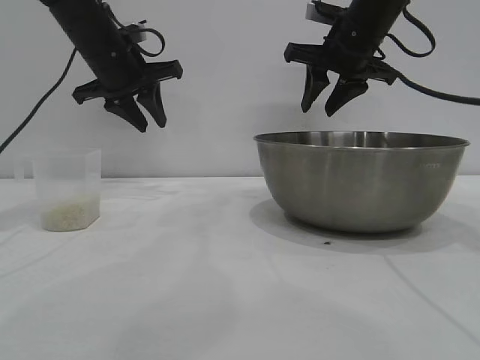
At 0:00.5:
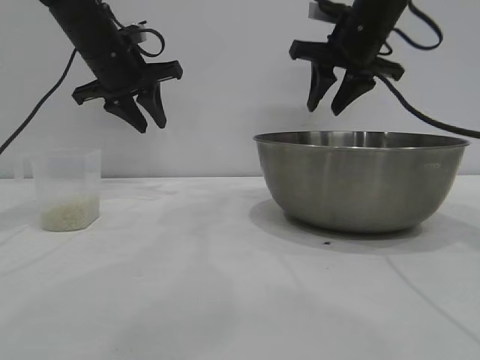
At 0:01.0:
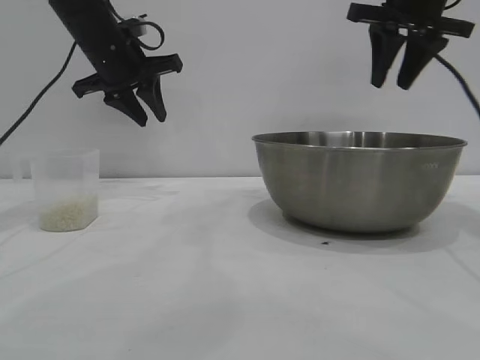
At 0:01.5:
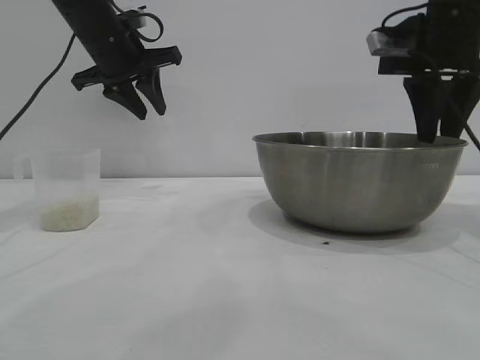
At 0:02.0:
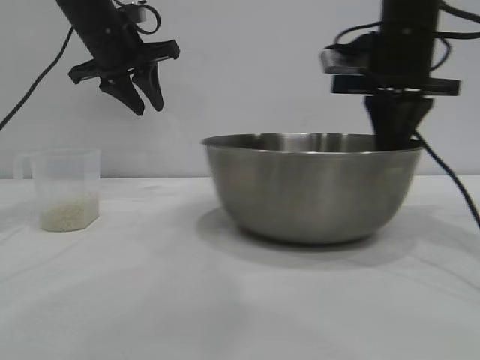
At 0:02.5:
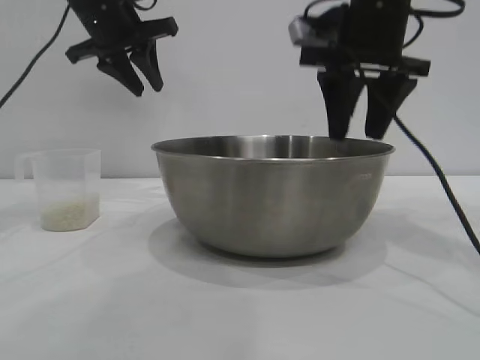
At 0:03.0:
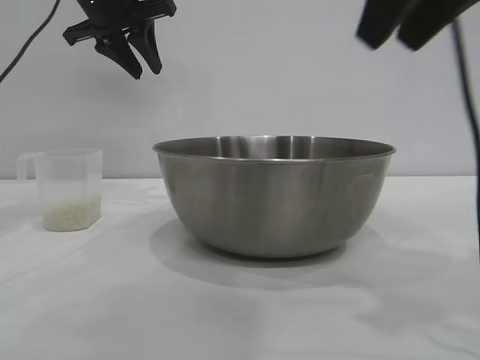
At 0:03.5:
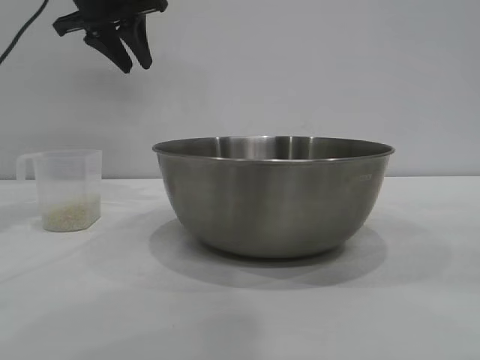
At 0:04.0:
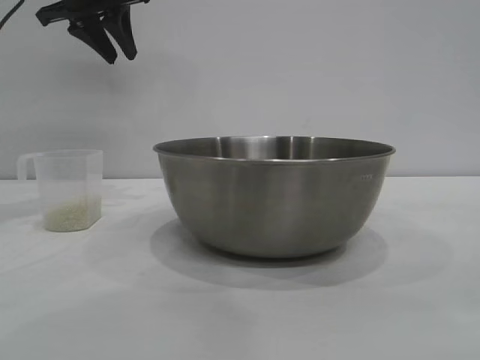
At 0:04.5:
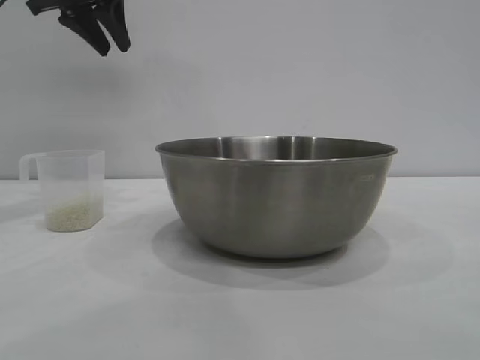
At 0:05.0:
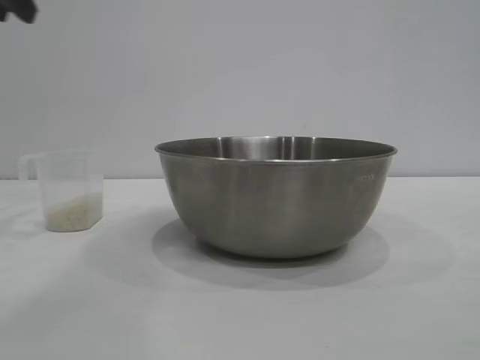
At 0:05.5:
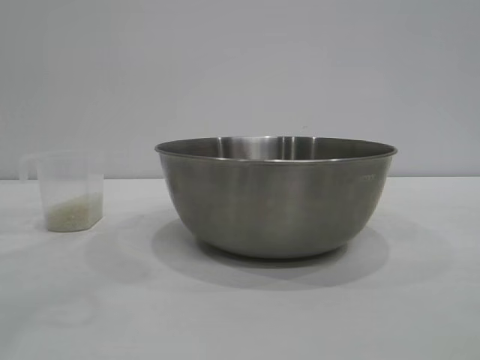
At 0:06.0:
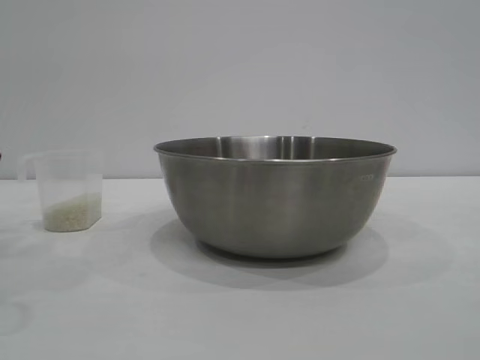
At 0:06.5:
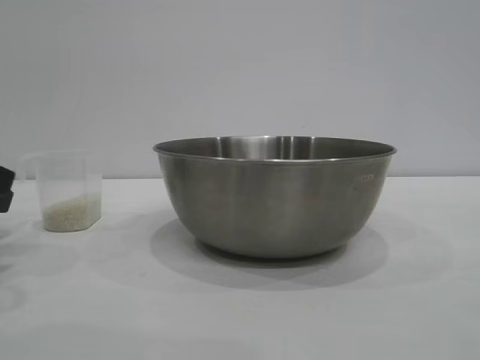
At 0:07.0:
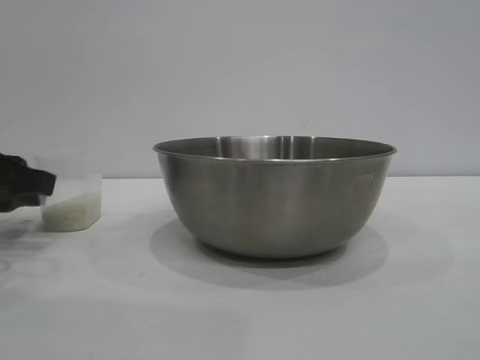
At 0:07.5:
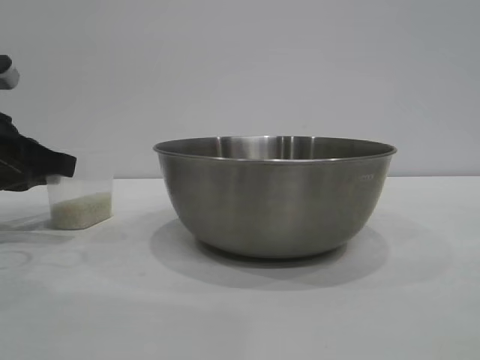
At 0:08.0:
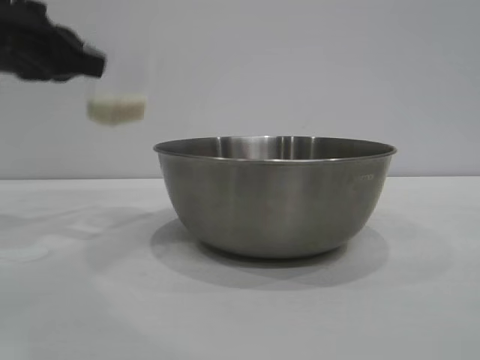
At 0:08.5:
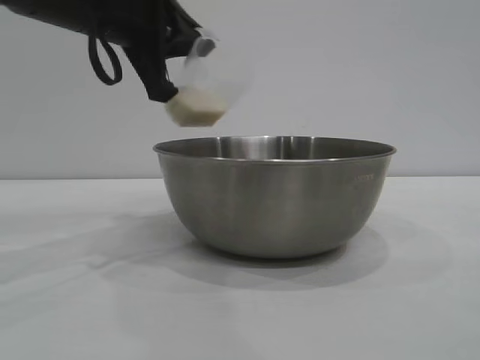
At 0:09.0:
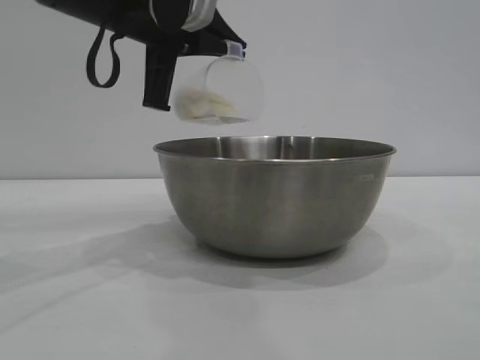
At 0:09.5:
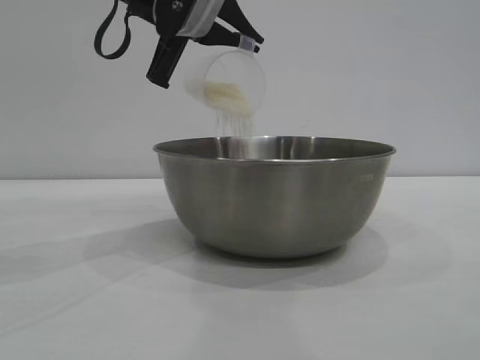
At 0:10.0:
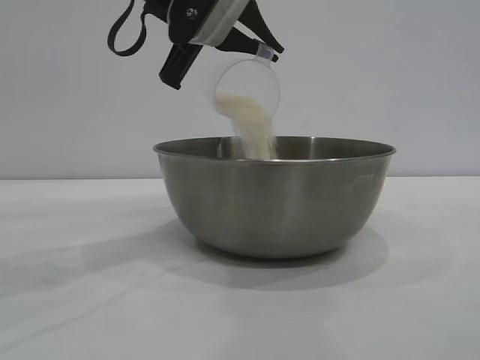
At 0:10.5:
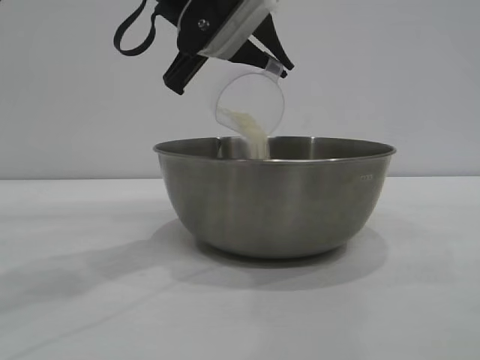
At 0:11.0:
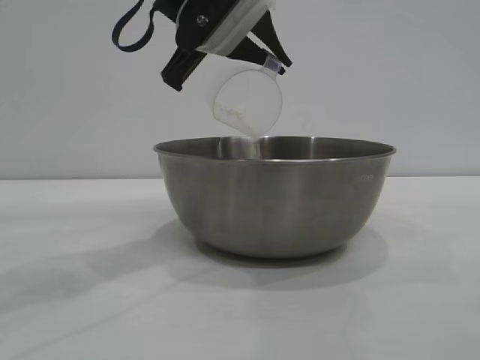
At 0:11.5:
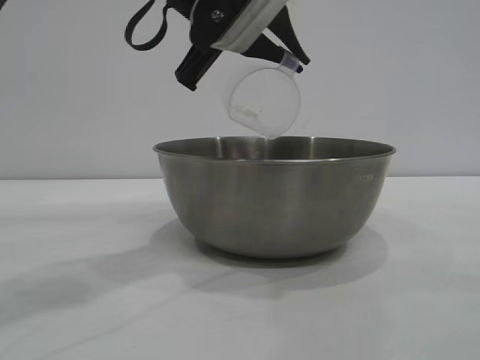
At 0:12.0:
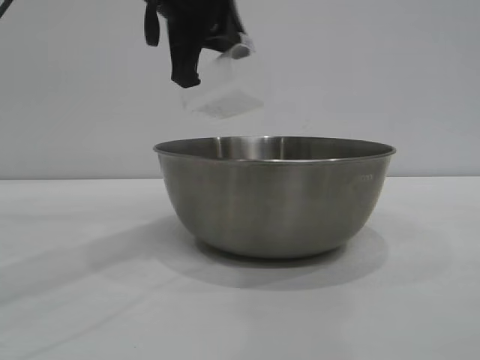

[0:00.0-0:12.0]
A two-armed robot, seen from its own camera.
Task of the whole recording: the right gripper grasp the rice container and place it in the center of the table, the left gripper grasp the rice scoop and pour the rice into the rice container.
Step, 0:00.0 to 0:02.5: Move the bowl to the center of view with the right gripper.
Step, 0:03.0 to 0:07.5: Pick up the cup with rice in it with the left gripper.
Step, 0:08.0 to 0:12.0: Pour the rice from the cup into the bowl with the left gripper.

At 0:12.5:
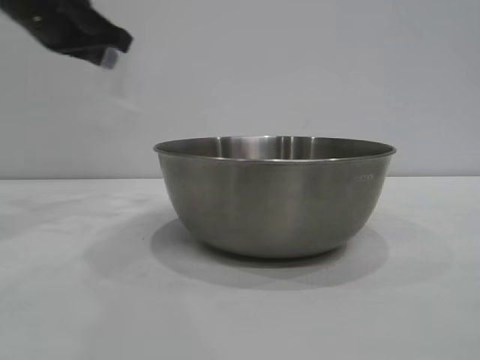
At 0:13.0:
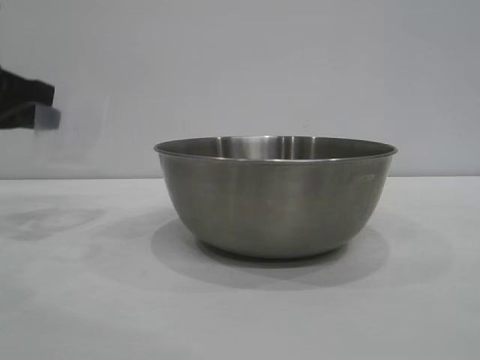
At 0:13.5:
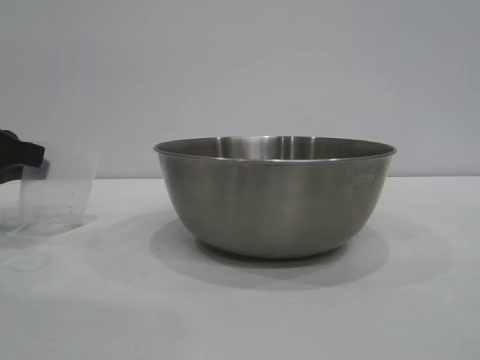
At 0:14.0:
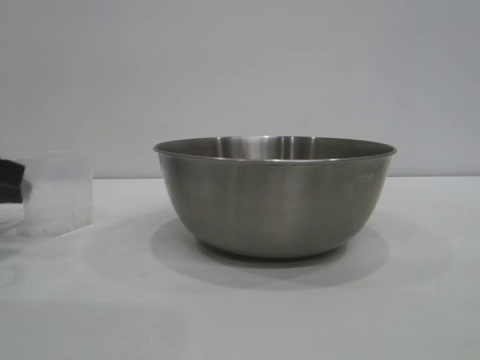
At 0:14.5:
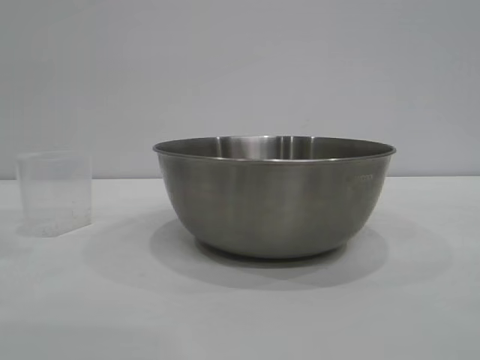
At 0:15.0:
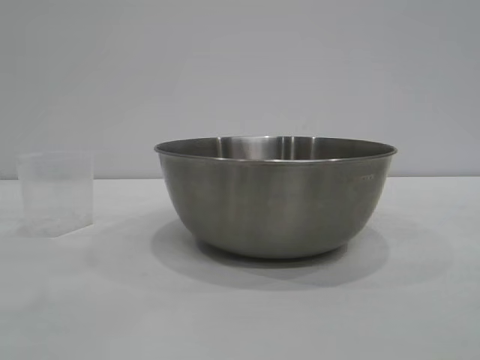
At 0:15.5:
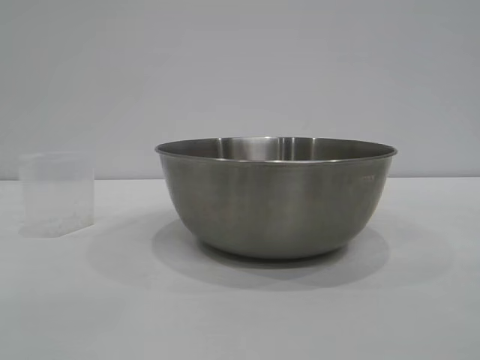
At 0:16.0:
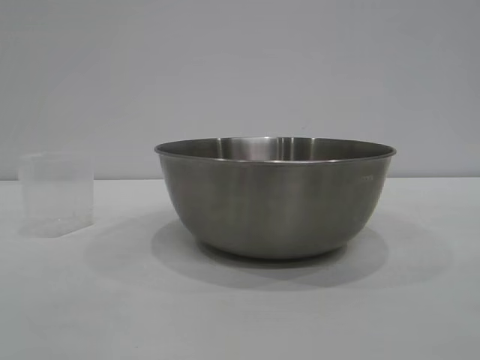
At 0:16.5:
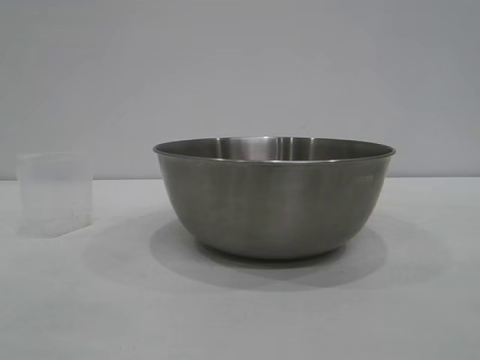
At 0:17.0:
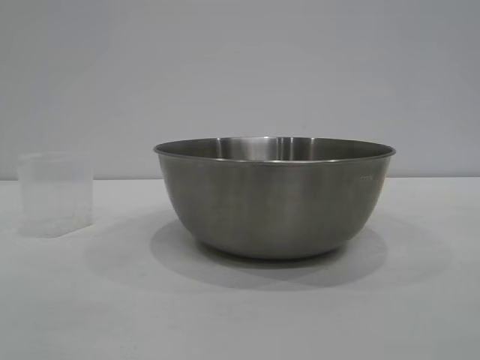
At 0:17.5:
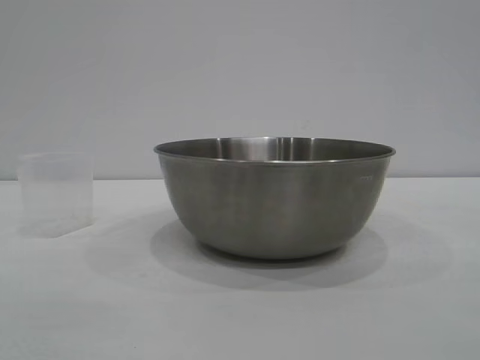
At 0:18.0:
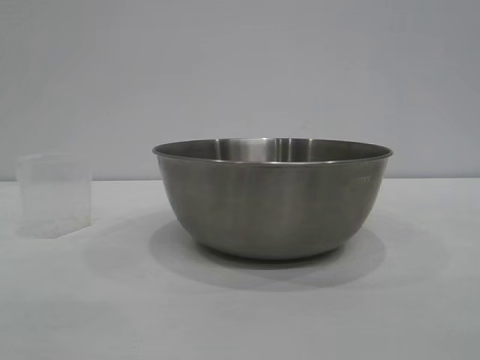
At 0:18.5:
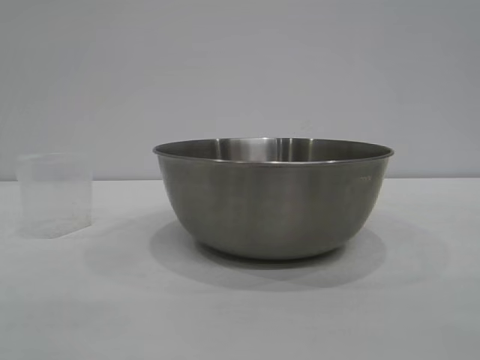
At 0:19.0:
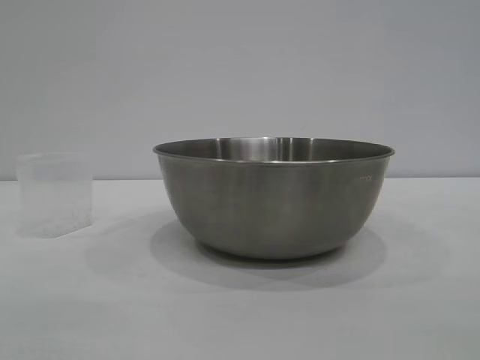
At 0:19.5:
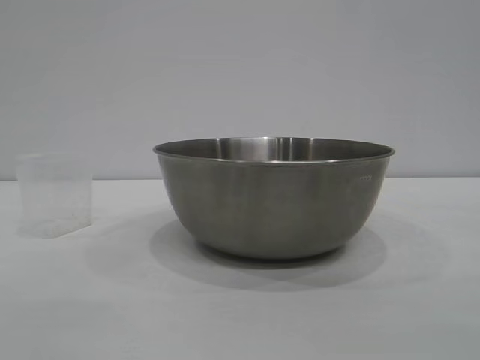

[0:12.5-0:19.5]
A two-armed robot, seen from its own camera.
Task of the whole recording: the right gripper grasp the rice container and place it in the center of the table, the left gripper grasp the rice scoop and pour the rice into the rice container.
Step, 0:12.5 to 0:14.0: Place the cup on the table with the left gripper.
